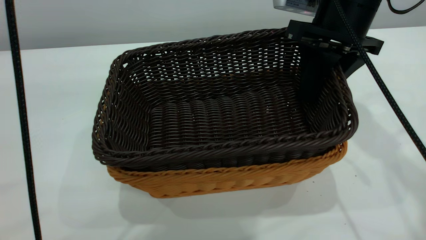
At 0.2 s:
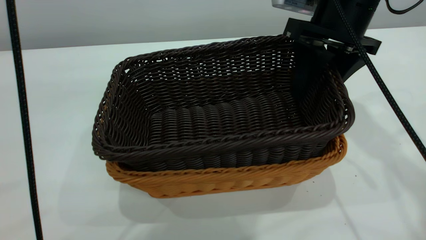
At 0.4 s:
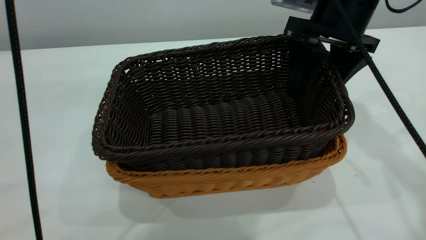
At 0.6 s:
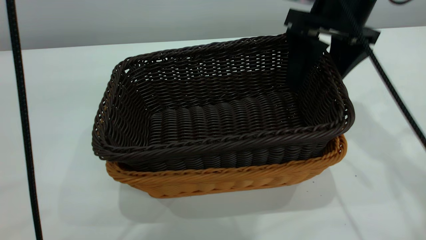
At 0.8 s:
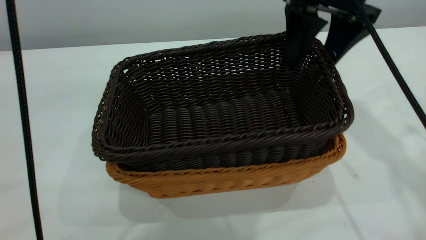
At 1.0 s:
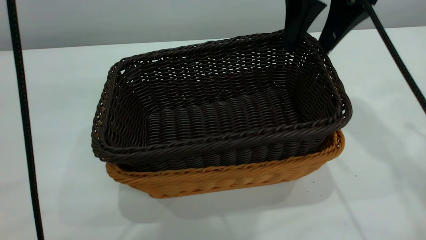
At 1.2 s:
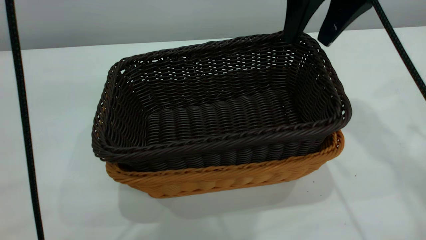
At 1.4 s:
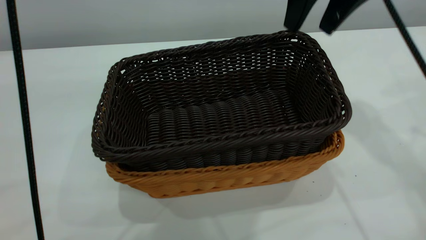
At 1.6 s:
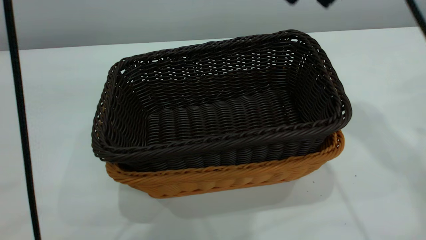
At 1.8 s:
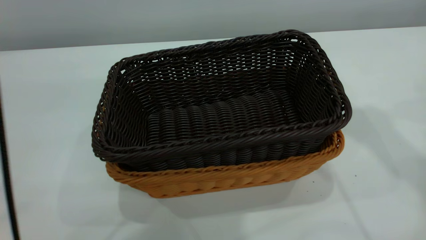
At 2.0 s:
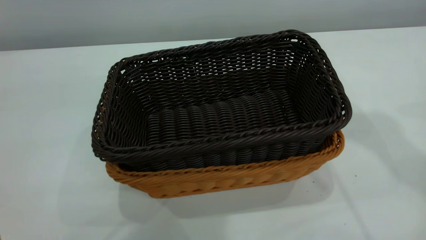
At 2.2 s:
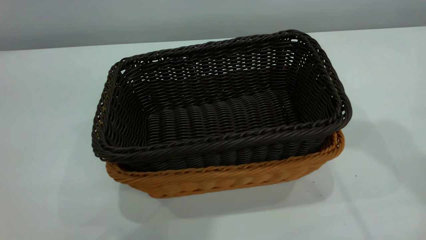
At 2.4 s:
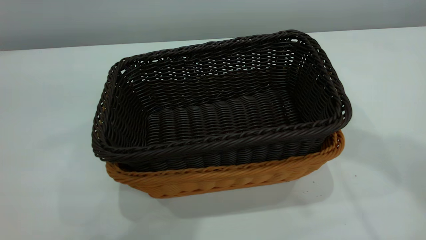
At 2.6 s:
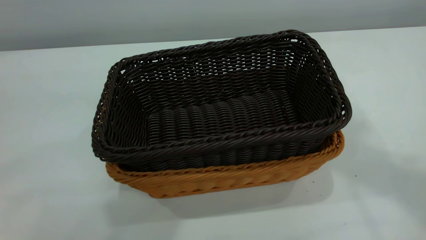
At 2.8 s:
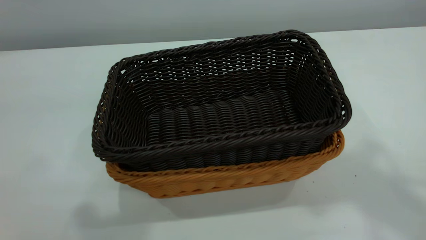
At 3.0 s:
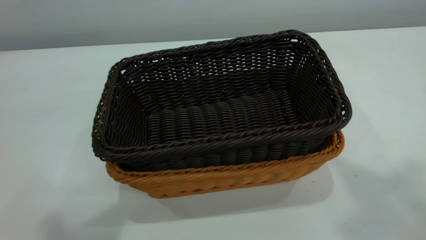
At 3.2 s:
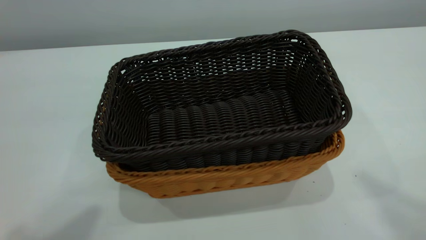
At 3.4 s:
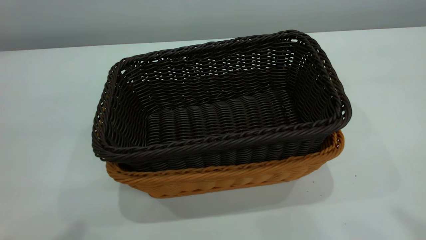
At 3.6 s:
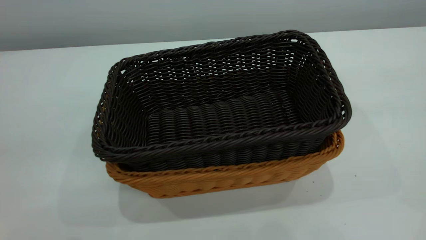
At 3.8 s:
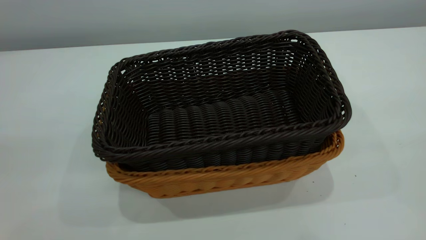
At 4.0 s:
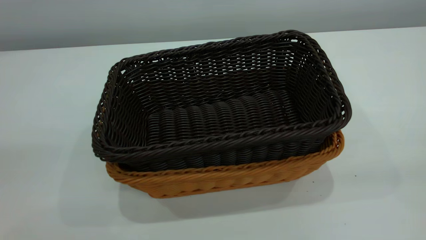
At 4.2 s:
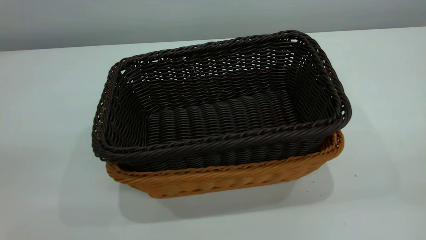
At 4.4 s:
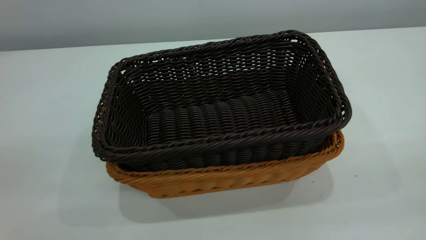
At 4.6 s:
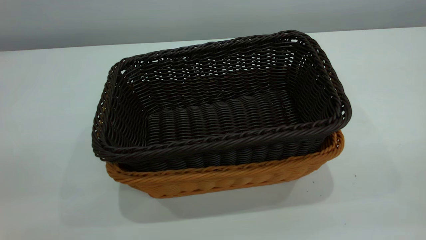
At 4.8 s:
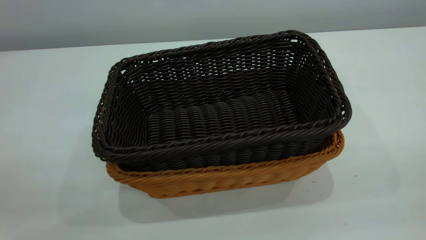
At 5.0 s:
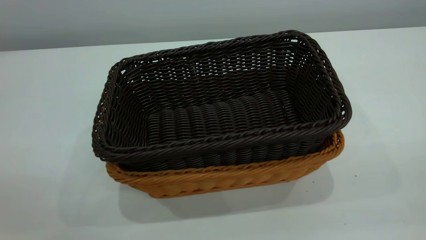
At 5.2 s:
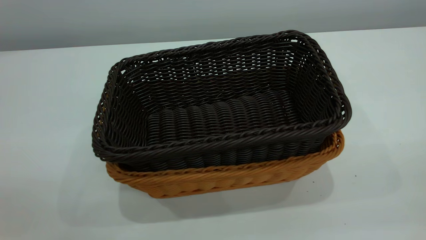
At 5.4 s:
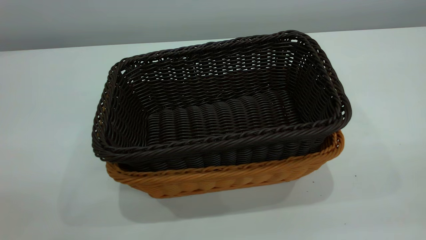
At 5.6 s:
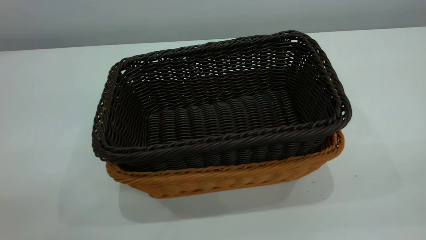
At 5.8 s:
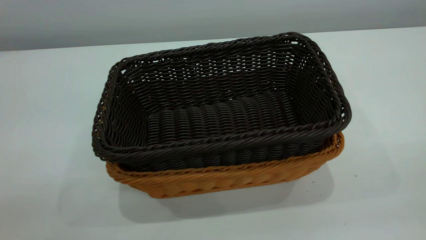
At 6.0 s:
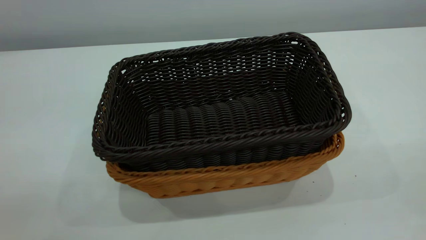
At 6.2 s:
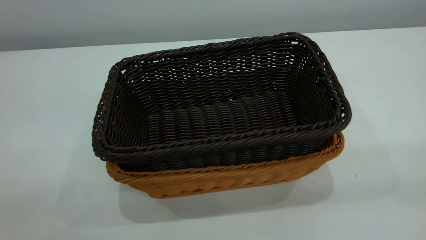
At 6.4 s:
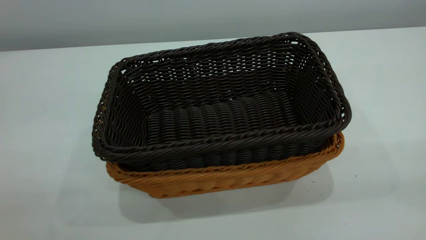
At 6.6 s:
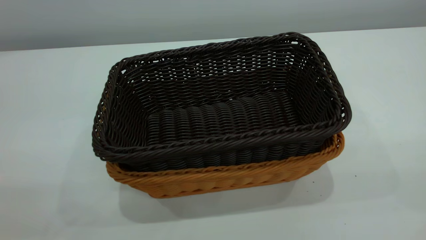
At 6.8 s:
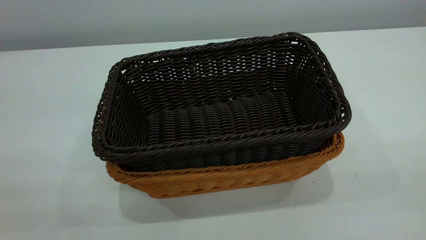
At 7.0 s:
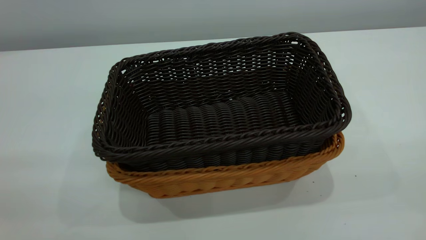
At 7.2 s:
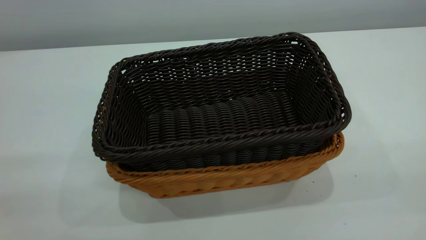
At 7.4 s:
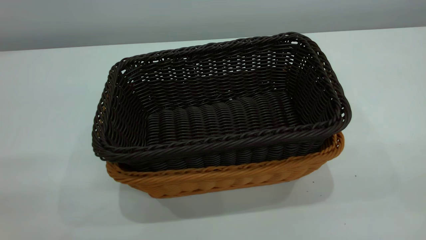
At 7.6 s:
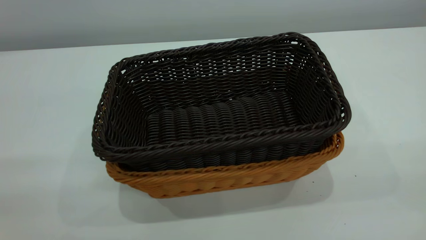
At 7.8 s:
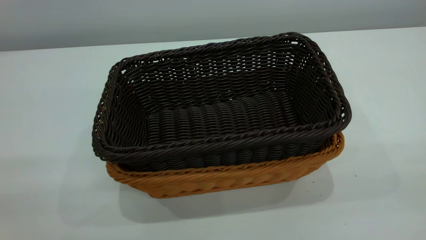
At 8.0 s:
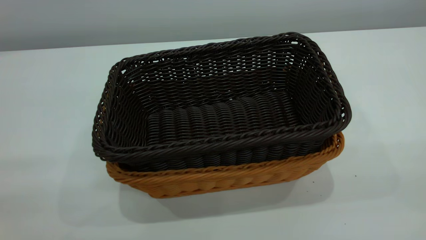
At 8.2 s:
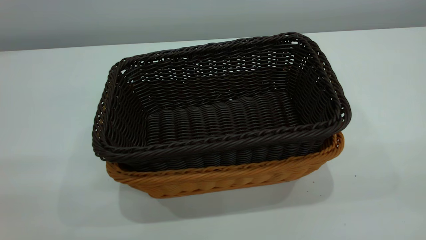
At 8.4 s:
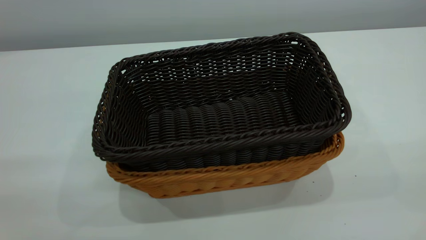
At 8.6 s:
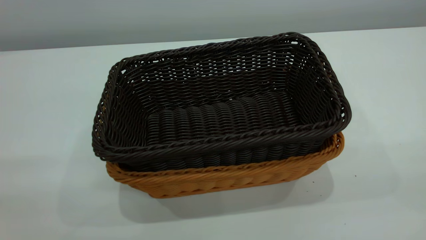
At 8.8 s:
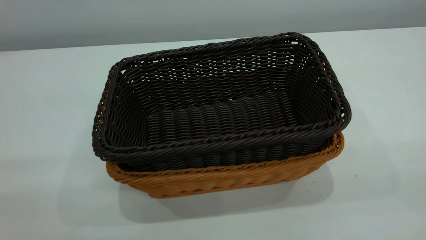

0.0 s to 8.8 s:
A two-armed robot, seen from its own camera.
Task of the whole recording: the left gripper grasp the brown basket and place it in the center of the table, the right gripper grasp the black basket and place it inside the brown one.
0.0 to 1.4 s: The right gripper goes about 10 cm upward, and opens its fingers.
1.4 to 3.0 s: The left gripper shifts about 15 cm to the left and backward, and closes, while the right gripper is displaced upward and backward by approximately 35 cm, and closes its fingers.
3.0 to 4.4 s: The right gripper is displaced downward, backward and to the right by roughly 30 cm.
7.4 to 8.8 s: The two grippers keep their place.
